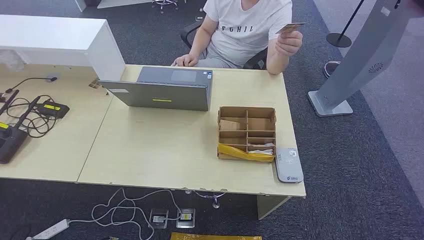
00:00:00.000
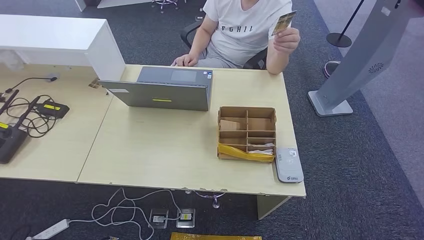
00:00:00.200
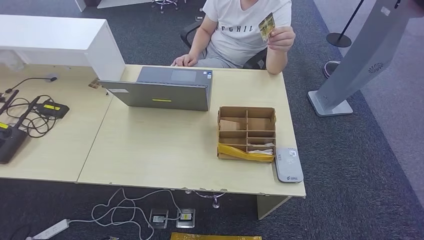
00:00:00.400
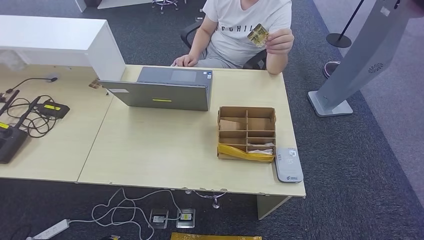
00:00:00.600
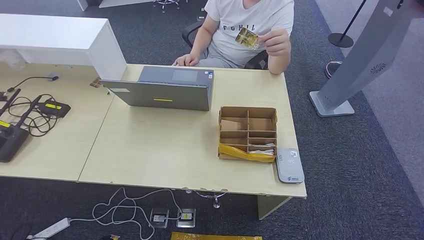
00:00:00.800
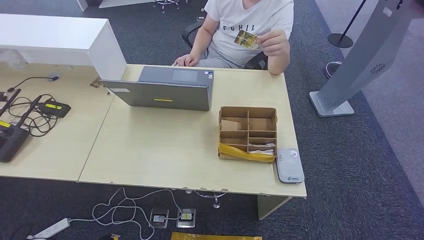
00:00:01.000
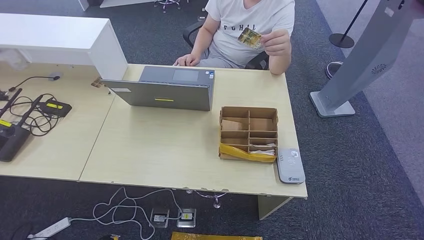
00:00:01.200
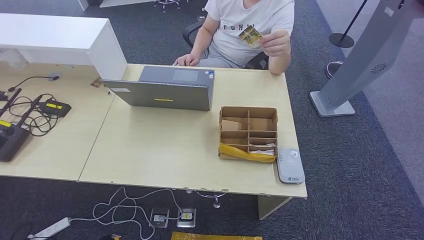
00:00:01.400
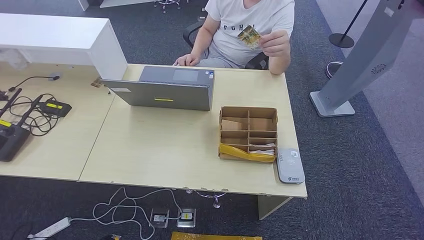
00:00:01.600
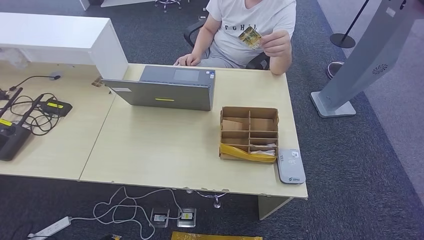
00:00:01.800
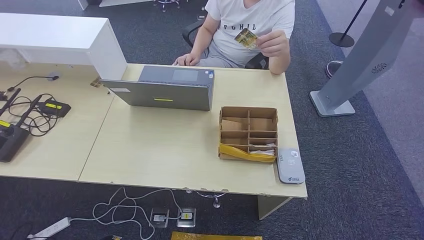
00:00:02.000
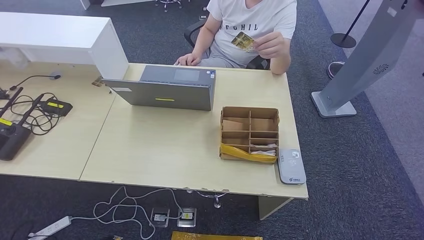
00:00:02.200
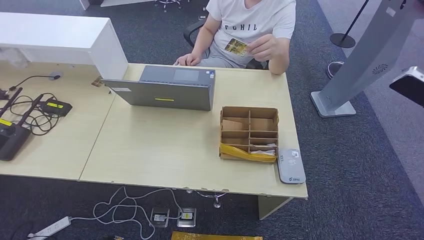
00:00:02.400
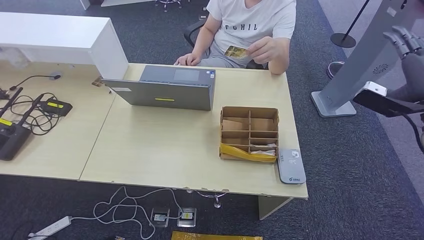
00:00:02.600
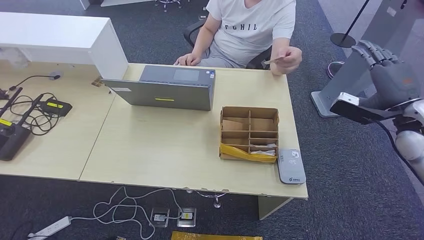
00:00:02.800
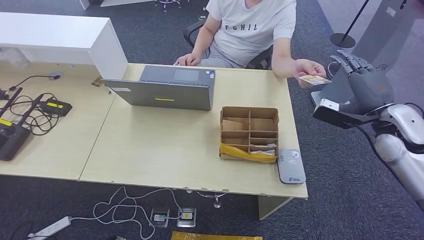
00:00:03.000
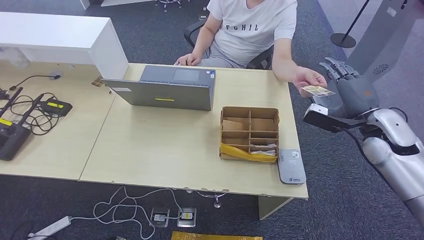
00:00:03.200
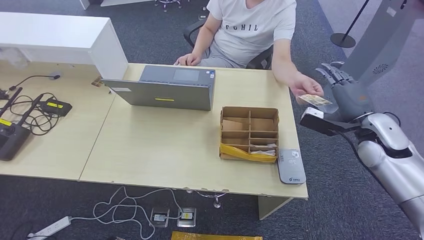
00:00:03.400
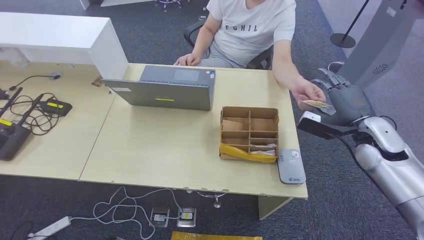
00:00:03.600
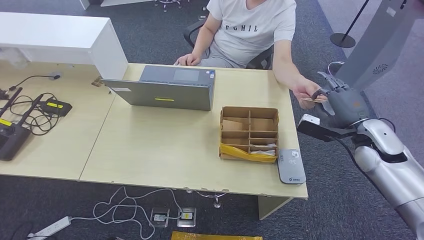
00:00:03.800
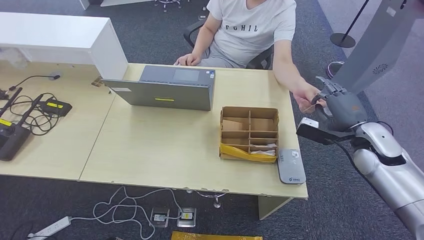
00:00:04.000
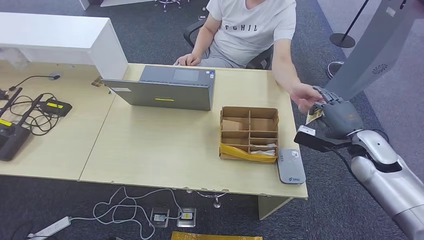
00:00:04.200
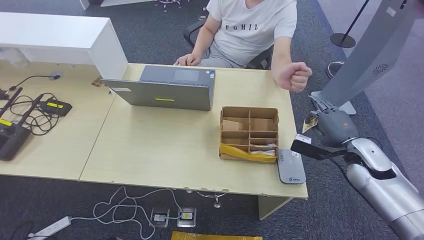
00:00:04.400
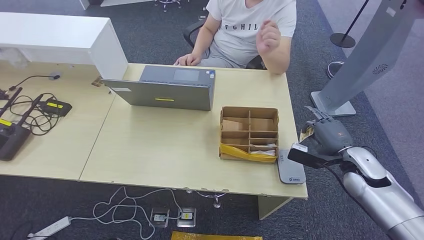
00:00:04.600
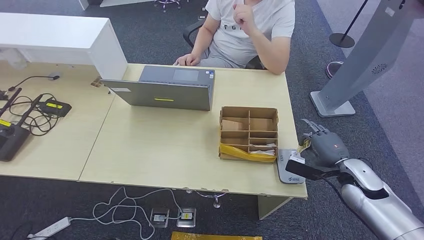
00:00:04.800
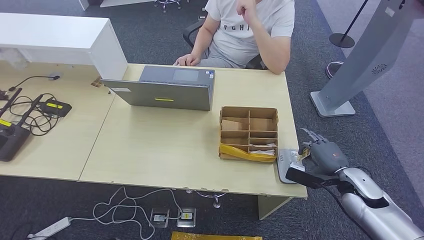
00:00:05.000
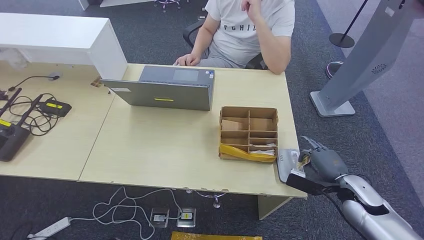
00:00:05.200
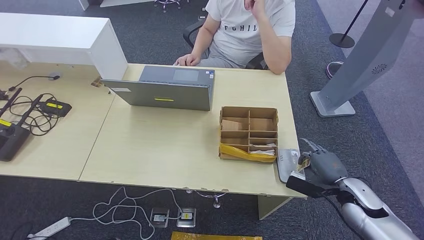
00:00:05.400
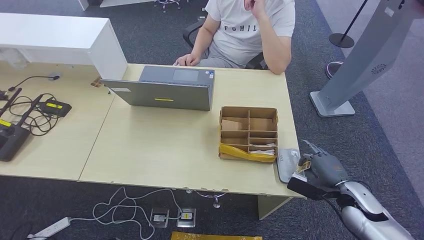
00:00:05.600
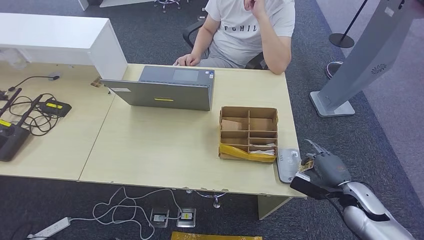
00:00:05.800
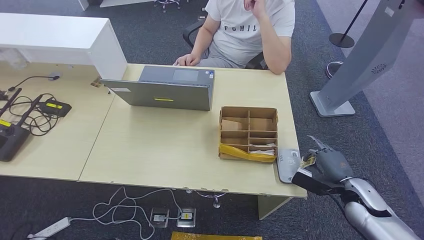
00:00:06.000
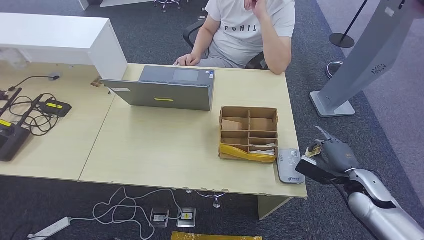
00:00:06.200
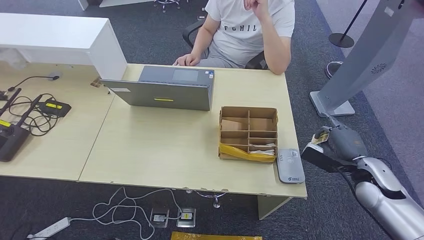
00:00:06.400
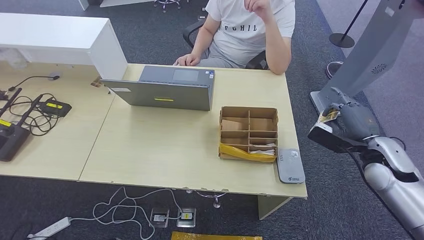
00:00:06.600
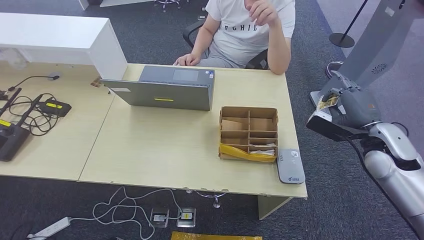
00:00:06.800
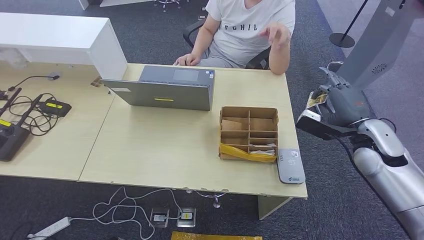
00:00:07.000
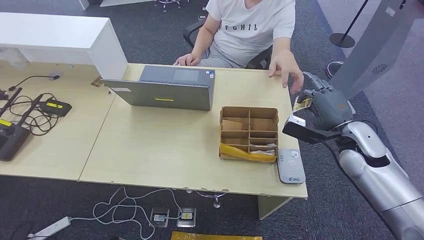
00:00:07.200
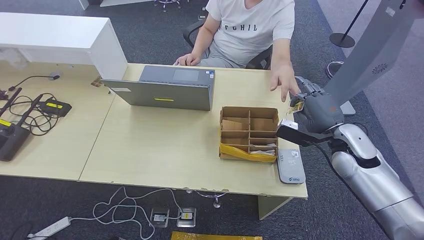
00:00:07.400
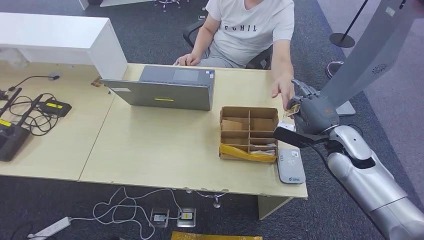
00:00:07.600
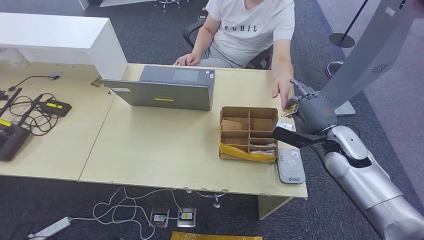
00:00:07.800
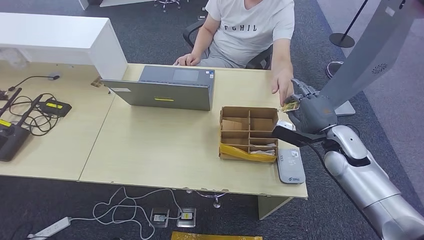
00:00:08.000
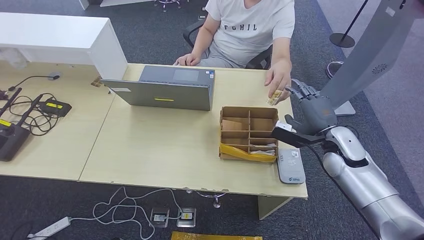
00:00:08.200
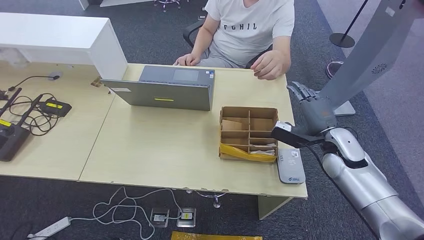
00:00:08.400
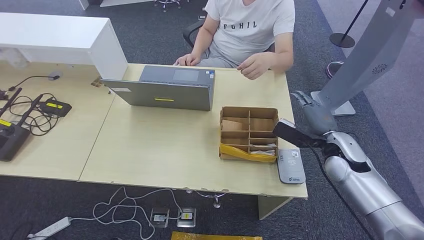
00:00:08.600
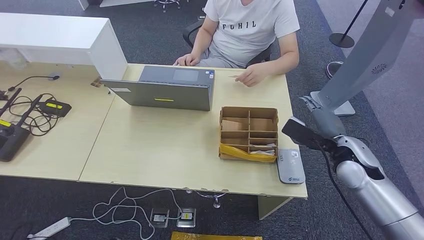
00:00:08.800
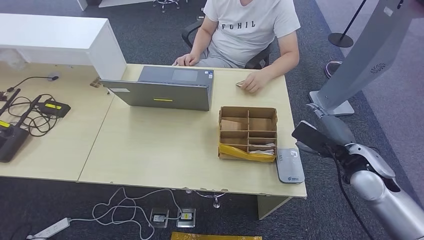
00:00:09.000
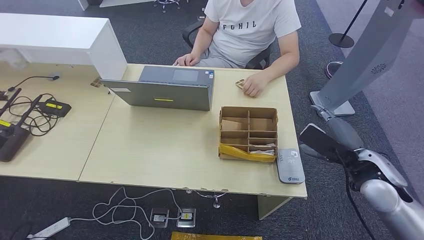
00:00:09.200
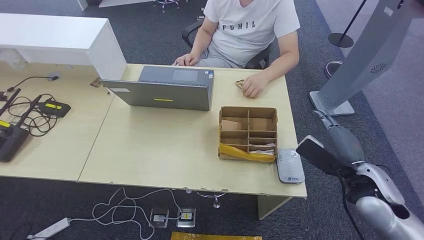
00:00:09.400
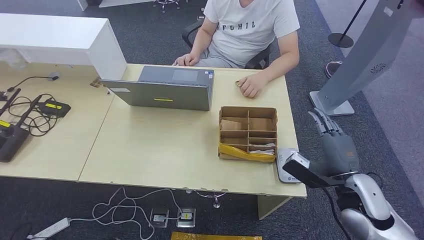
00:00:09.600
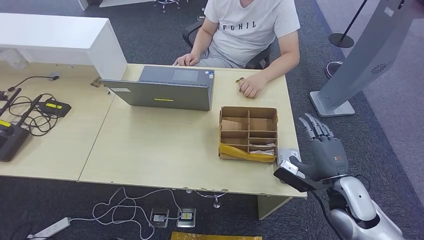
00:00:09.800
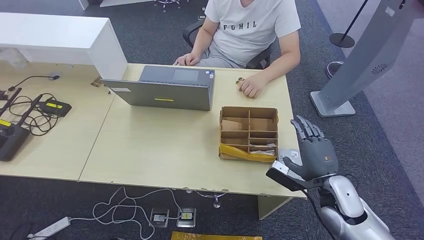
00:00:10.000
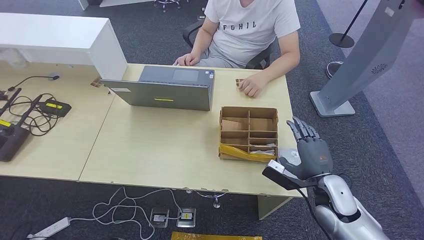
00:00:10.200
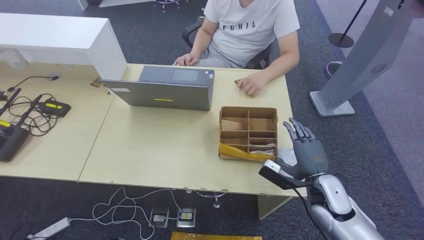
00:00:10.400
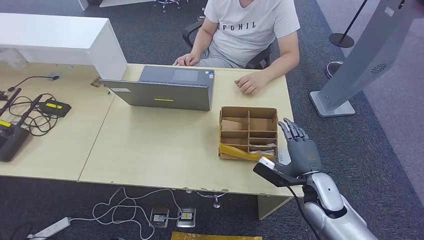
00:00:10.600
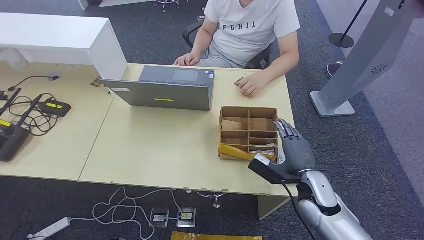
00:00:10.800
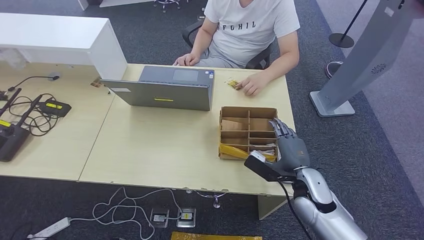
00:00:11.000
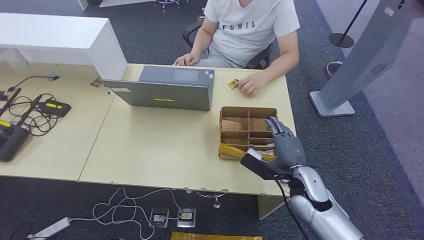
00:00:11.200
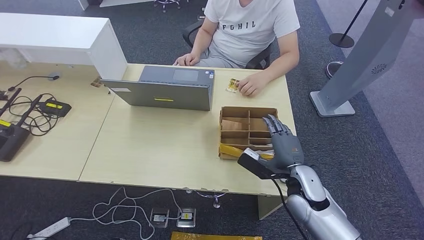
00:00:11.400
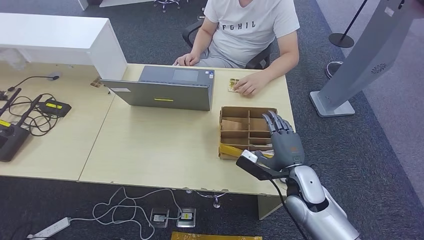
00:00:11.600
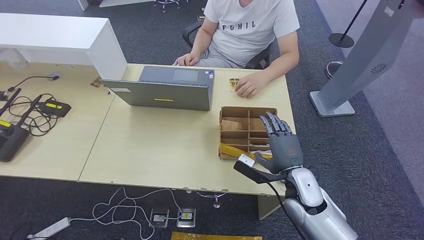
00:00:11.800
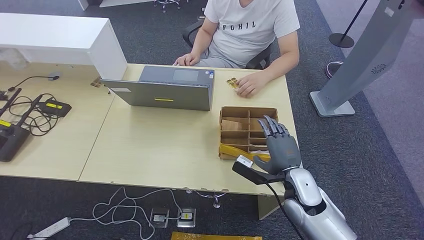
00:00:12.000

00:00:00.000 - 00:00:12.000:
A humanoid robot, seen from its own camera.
Step, 00:00:00.000 - 00:00:04.400: Take the ID card from the person's hand.
Step, 00:00:05.200 - 00:00:05.600: Place the ID card on the card reader.
Step, 00:00:05.800 - 00:00:09.000: Hand the ID card to the person.
00:00:01.600 - 00:00:03.000: The right hand travels to the left, forward and downward by about 30 cm.
00:00:03.000 - 00:00:04.400: The right hand travels downward by roughly 10 cm.
00:00:04.400 - 00:00:06.000: The right hand moves downward and backward, some 10 cm.
00:00:06.000 - 00:00:07.600: The right hand moves upward, forward and to the left, about 15 cm.
00:00:07.600 - 00:00:09.000: The right hand shifts roughly 5 cm backward.
00:00:09.000 - 00:00:10.400: The right hand shifts some 10 cm downward and to the left.
00:00:10.400 - 00:00:12.000: The right hand goes some 5 cm to the left.

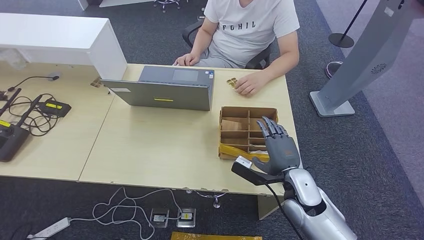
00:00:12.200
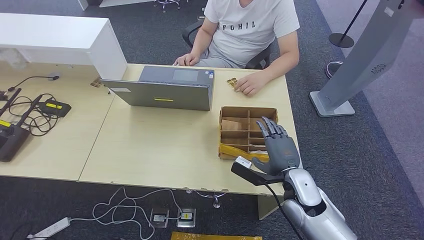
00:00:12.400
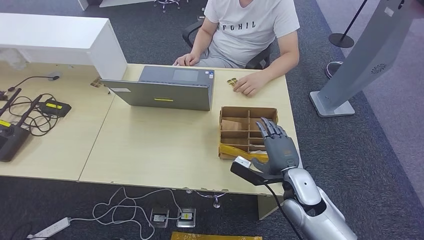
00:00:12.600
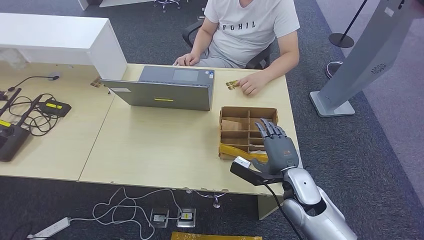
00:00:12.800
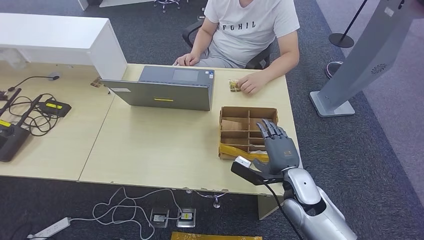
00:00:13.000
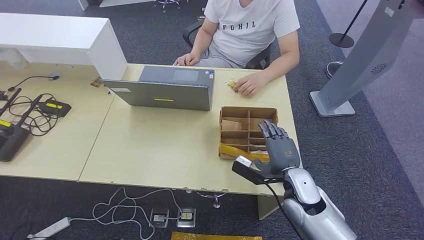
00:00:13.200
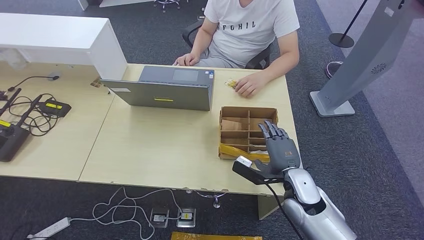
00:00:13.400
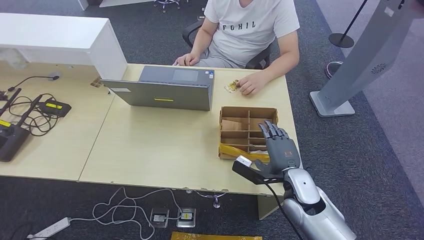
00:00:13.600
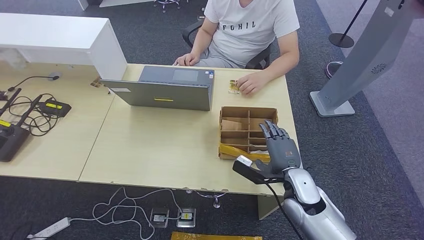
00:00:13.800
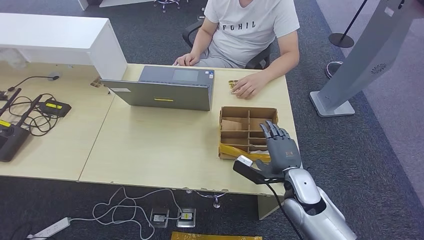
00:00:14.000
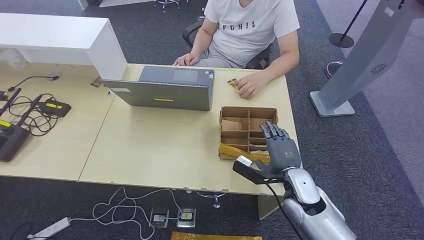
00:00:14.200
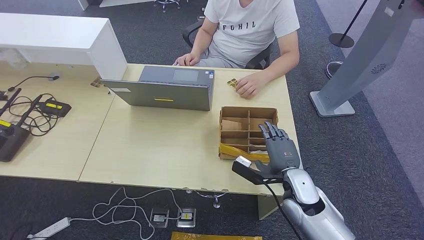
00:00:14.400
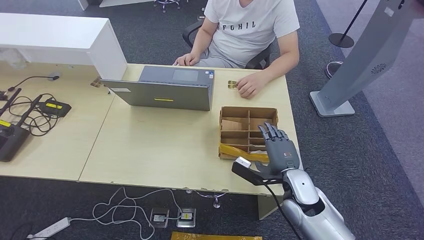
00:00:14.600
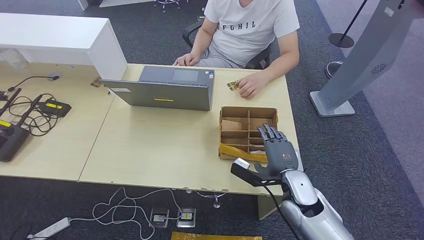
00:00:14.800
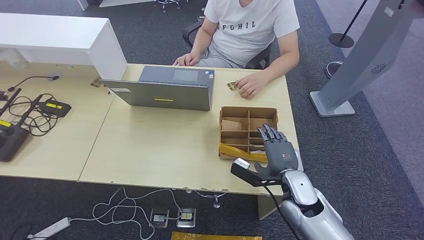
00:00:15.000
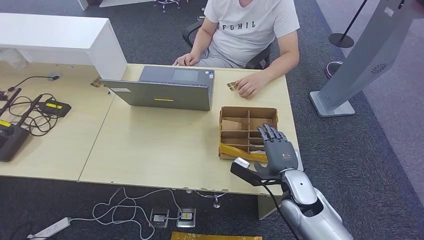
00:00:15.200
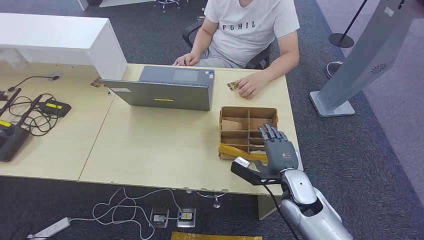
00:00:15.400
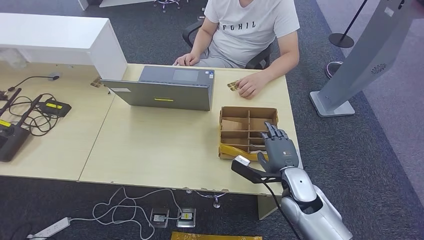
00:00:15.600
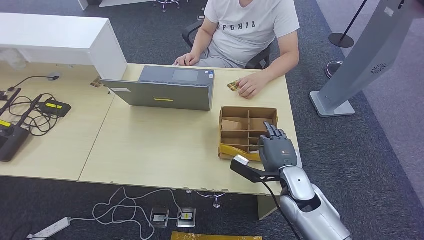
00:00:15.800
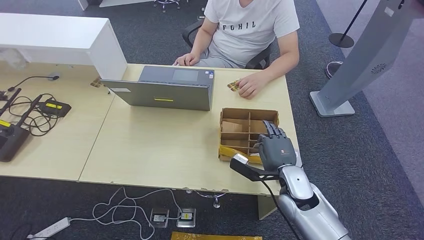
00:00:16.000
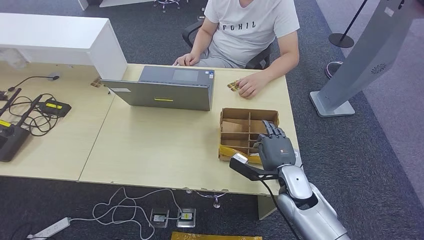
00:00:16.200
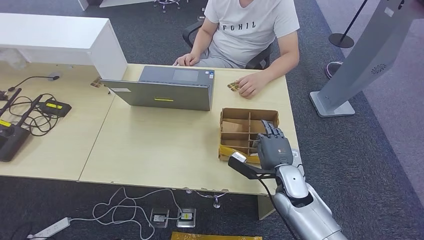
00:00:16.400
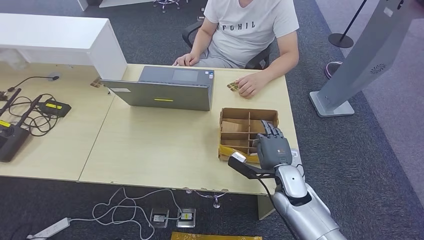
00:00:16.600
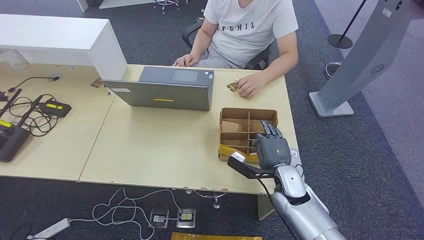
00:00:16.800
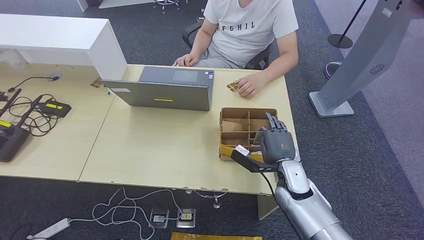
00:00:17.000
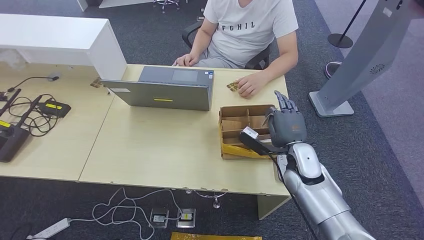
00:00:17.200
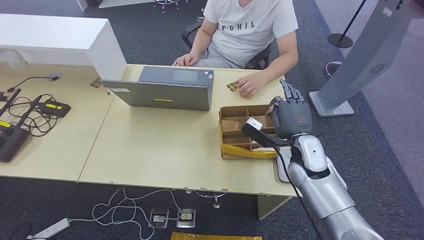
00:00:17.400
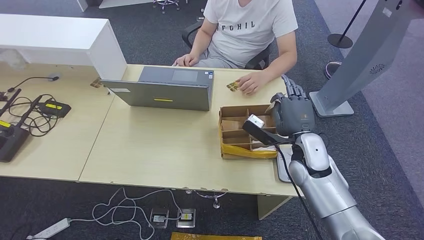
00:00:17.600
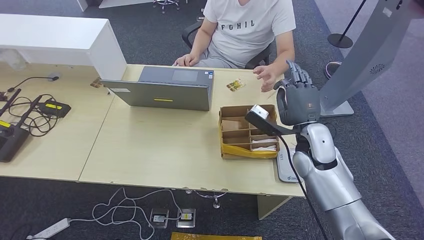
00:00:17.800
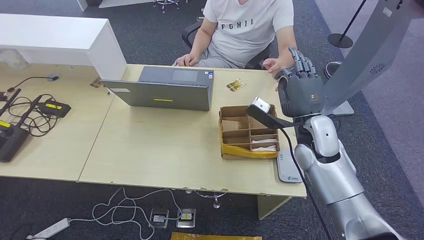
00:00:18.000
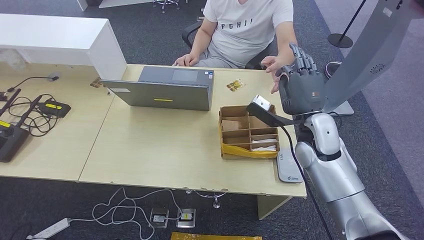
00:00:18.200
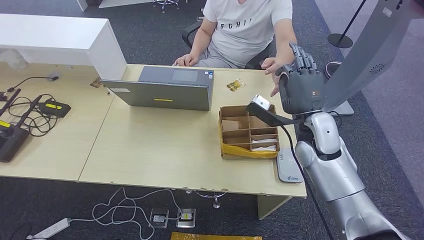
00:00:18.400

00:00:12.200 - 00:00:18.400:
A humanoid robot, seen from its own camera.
Step, 00:00:12.200 - 00:00:17.400: Pick up the room key from the key card box.
00:00:13.800 - 00:00:15.400: Neither hand changes place.
00:00:15.400 - 00:00:16.800: The hands move only a little.
00:00:16.800 - 00:00:18.400: The right hand is displaced upward by about 15 cm.
